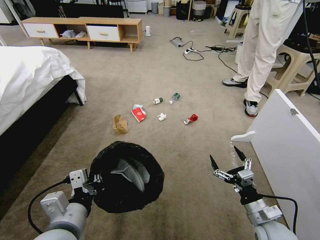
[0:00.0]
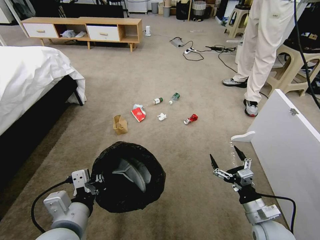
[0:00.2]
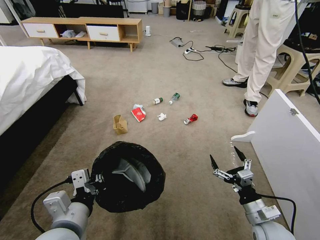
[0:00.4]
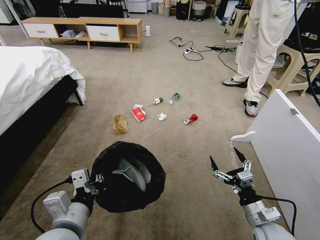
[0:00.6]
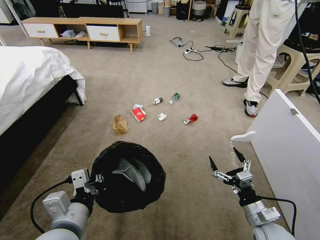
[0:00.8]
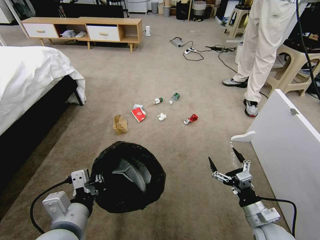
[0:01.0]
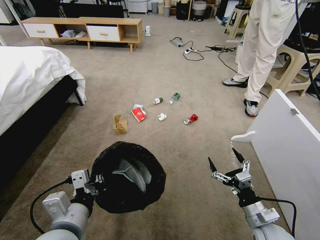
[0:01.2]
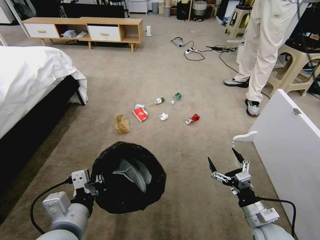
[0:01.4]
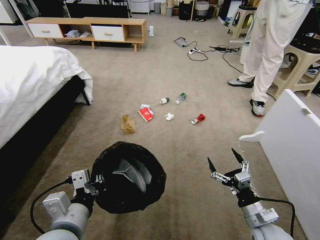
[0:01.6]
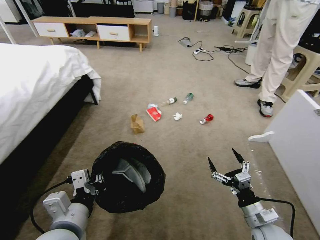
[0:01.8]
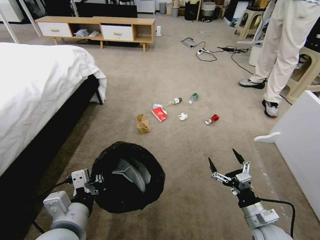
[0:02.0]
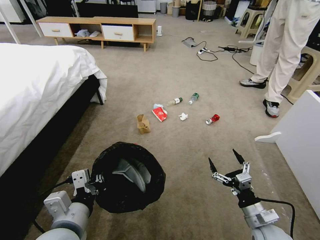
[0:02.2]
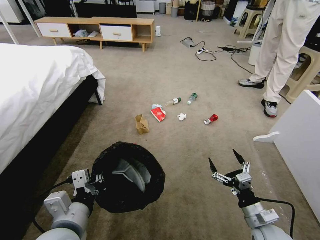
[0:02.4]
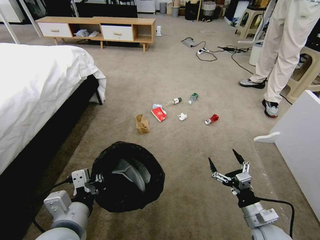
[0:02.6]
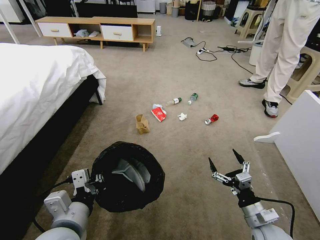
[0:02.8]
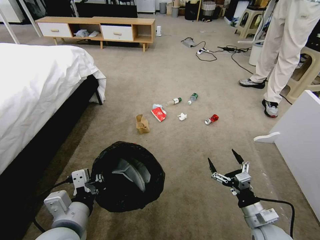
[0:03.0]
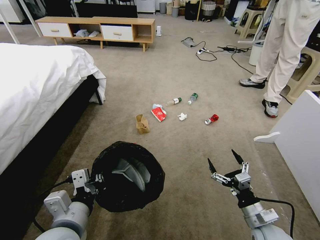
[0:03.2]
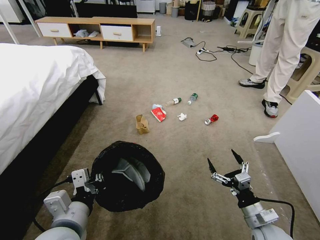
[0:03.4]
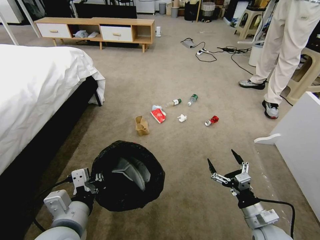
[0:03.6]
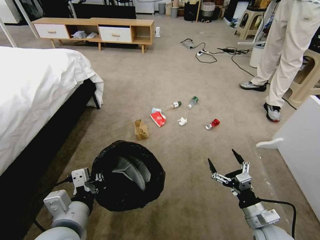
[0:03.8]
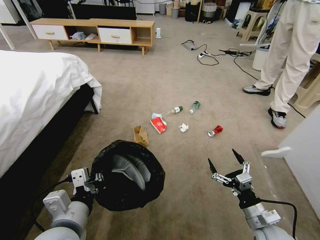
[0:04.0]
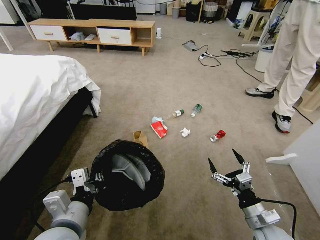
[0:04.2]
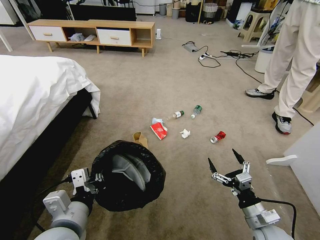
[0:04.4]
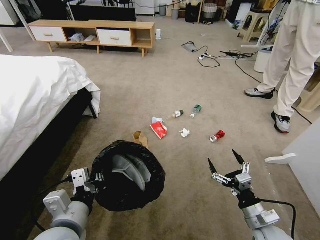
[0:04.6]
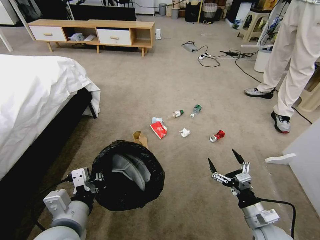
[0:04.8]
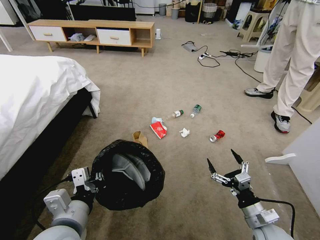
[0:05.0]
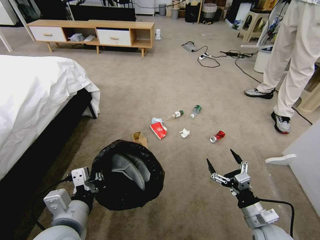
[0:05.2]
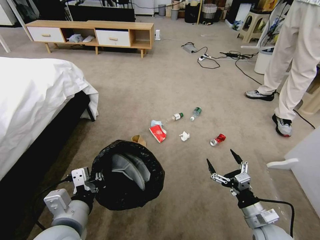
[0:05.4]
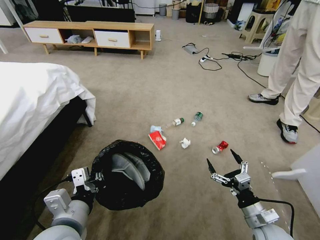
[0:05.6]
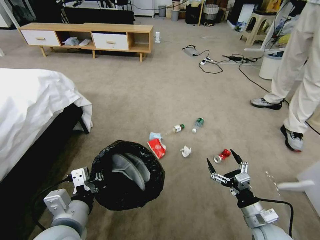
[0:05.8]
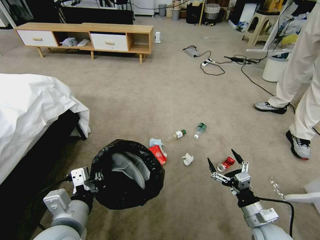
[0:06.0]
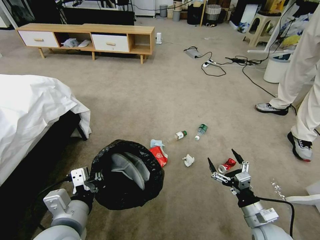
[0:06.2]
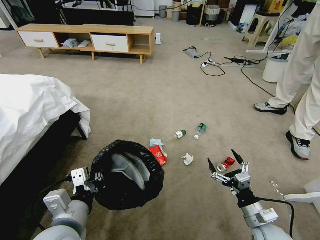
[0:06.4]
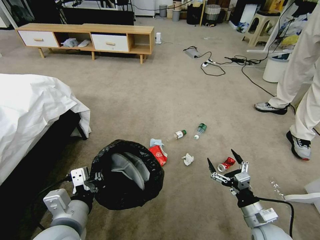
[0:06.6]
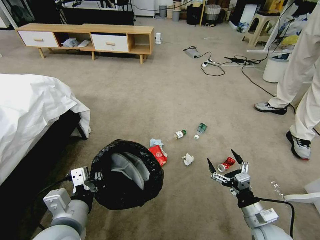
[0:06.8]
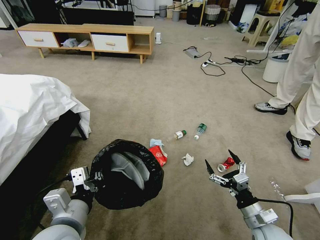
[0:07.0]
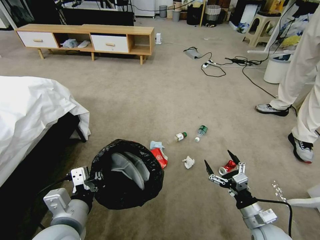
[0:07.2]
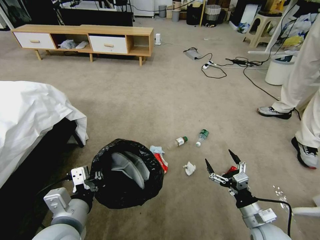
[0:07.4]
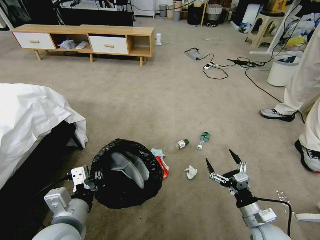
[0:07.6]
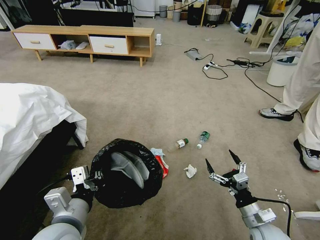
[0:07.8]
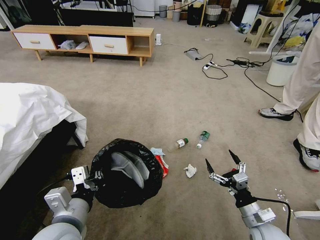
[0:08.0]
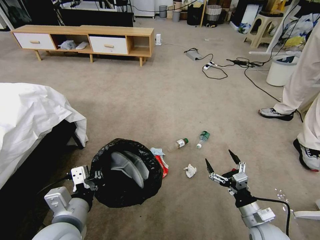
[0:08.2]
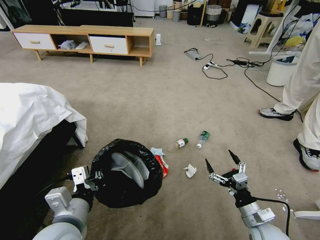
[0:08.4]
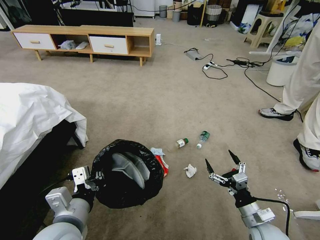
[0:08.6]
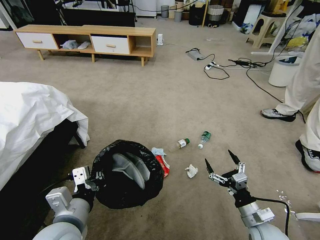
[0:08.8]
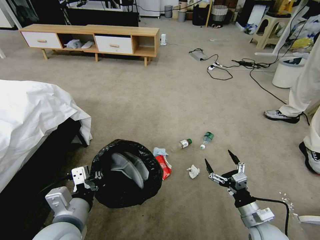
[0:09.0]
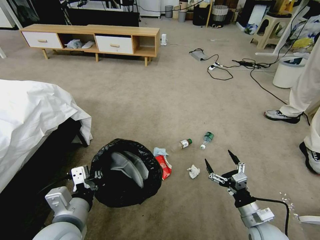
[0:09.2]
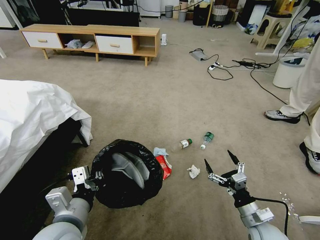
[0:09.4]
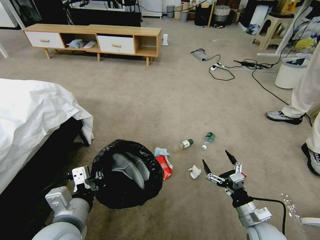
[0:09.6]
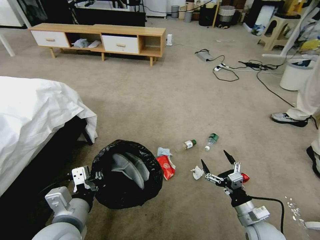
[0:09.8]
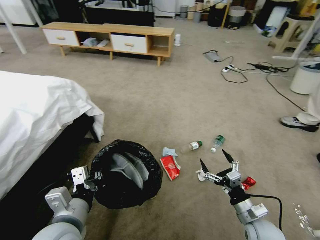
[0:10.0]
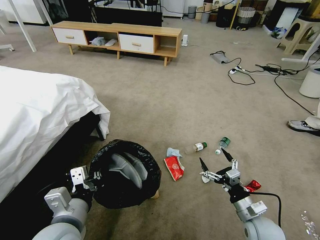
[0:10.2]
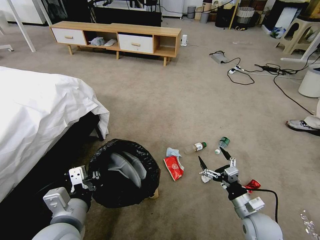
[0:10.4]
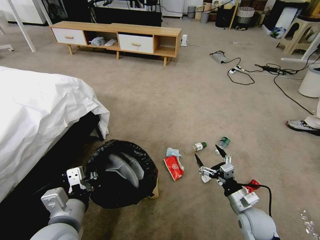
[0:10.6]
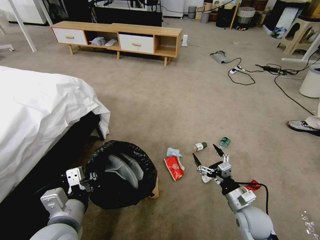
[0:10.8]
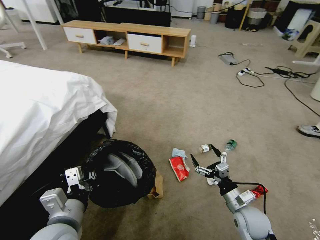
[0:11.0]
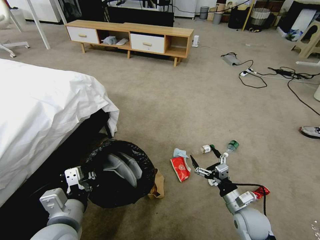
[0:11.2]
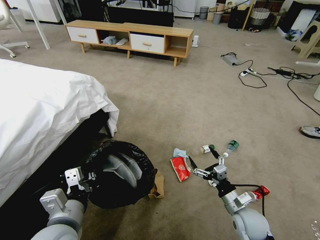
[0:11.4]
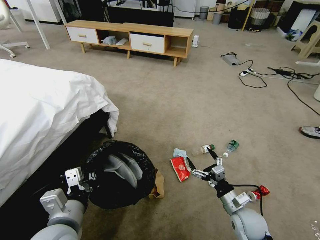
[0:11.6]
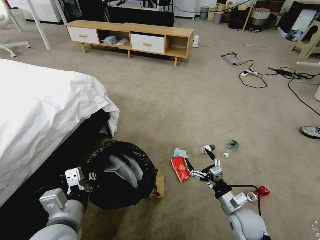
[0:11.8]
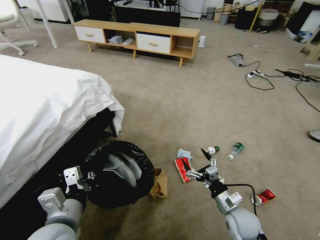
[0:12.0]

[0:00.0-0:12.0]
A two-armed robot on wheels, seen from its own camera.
Task of the whole recording: Pick up the trash bin and place the garbage on the floor into it.
0:07.6 to 0:09.0: Neither gripper changes place.
0:10.4 to 0:12.0: The right gripper ends up some 5 cm from where it was.

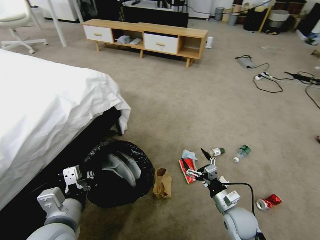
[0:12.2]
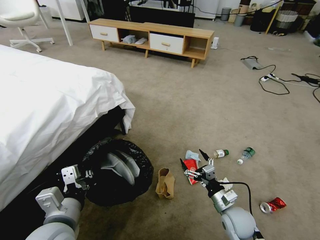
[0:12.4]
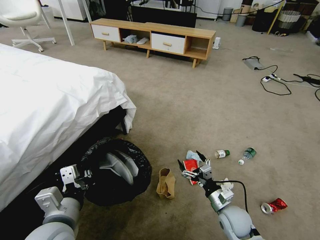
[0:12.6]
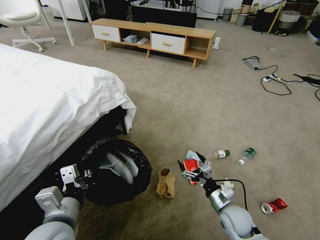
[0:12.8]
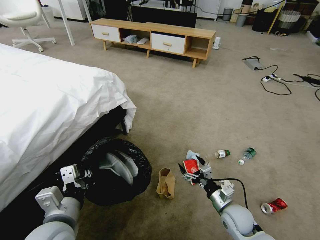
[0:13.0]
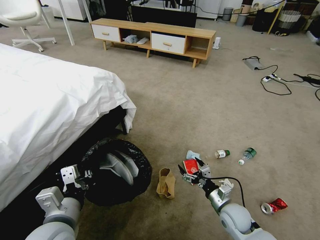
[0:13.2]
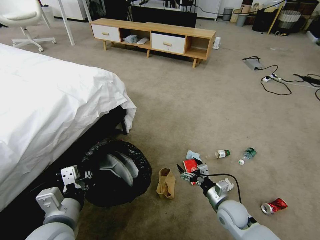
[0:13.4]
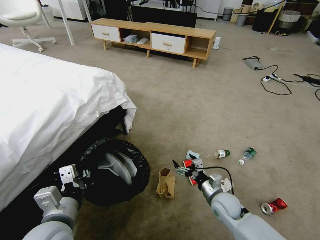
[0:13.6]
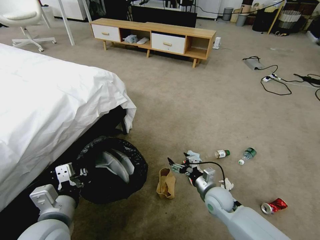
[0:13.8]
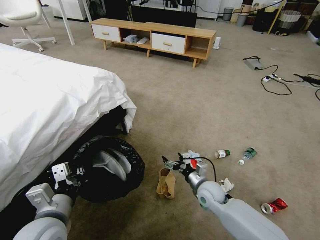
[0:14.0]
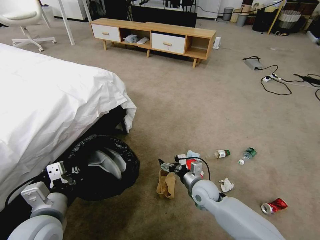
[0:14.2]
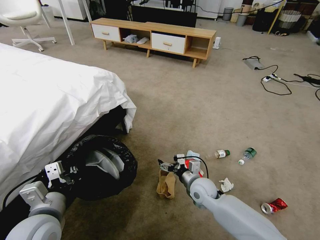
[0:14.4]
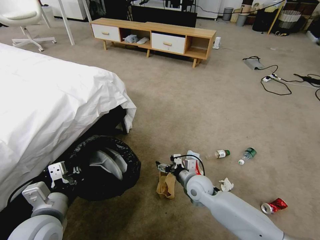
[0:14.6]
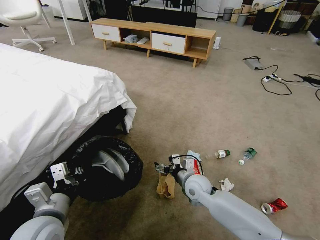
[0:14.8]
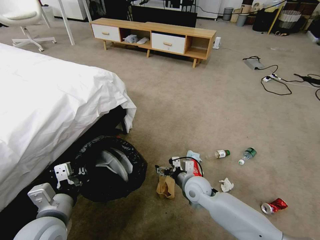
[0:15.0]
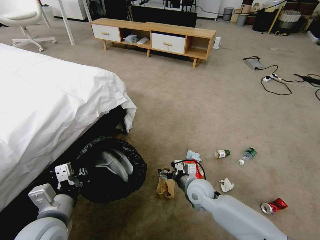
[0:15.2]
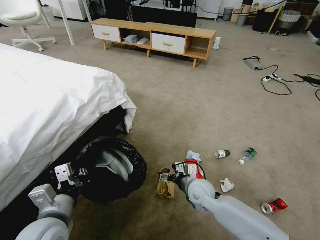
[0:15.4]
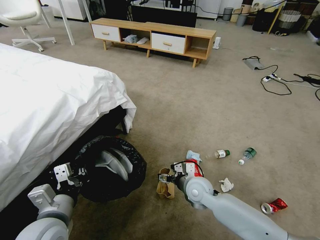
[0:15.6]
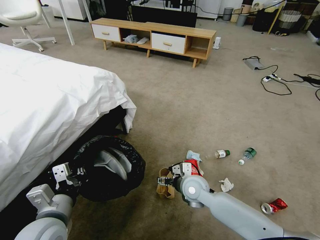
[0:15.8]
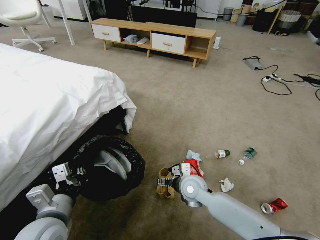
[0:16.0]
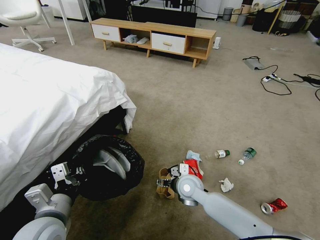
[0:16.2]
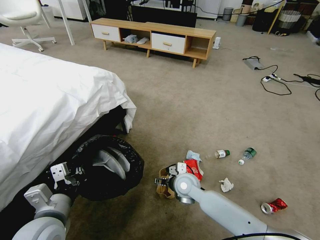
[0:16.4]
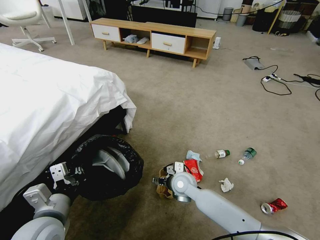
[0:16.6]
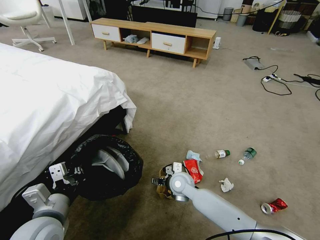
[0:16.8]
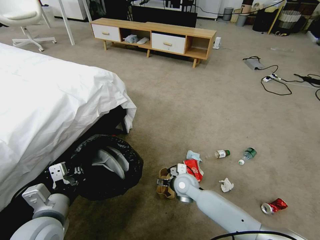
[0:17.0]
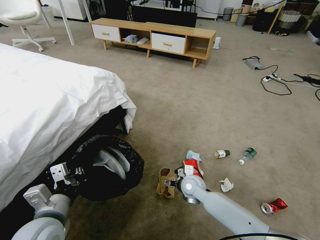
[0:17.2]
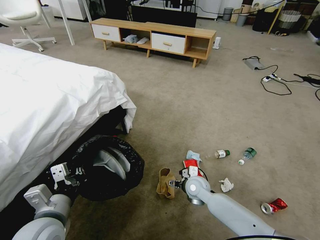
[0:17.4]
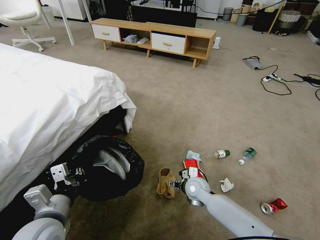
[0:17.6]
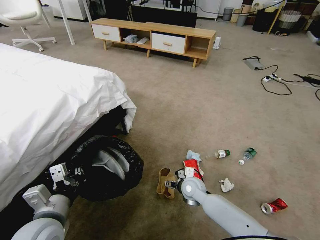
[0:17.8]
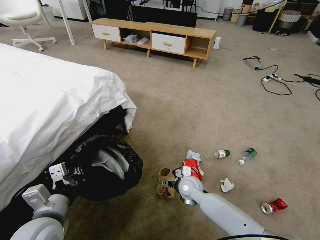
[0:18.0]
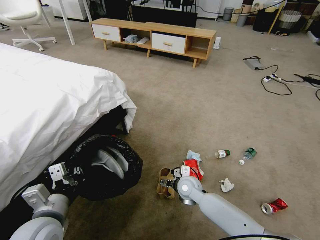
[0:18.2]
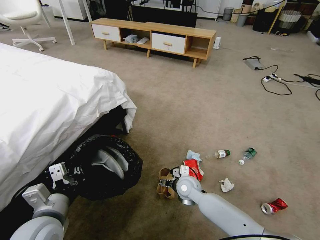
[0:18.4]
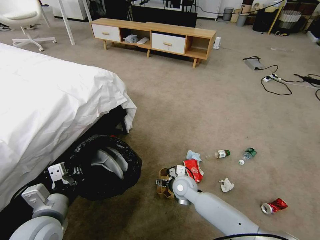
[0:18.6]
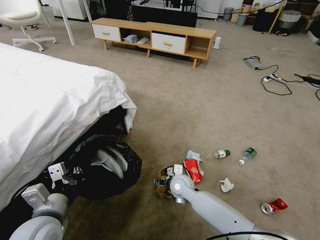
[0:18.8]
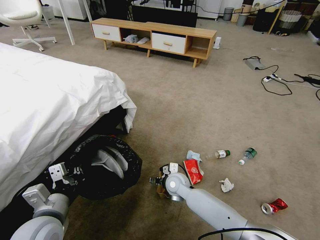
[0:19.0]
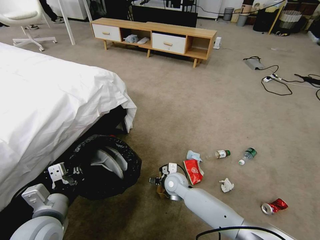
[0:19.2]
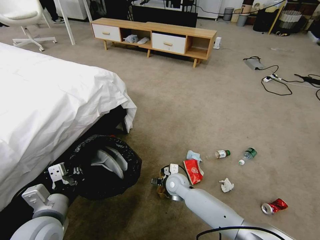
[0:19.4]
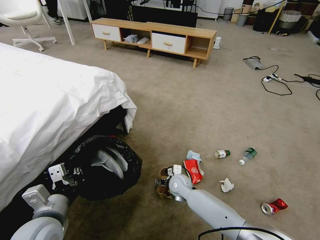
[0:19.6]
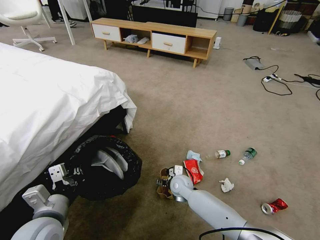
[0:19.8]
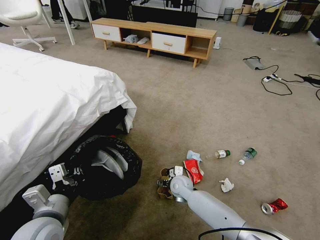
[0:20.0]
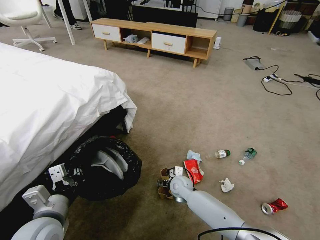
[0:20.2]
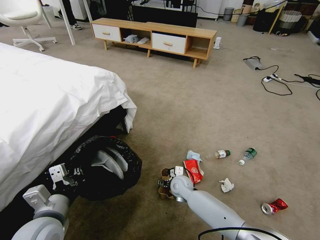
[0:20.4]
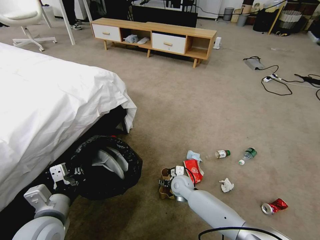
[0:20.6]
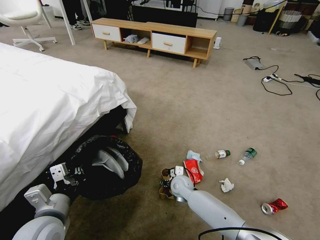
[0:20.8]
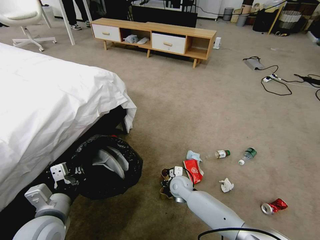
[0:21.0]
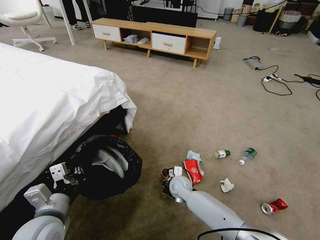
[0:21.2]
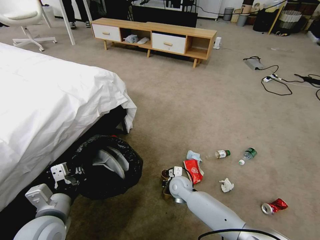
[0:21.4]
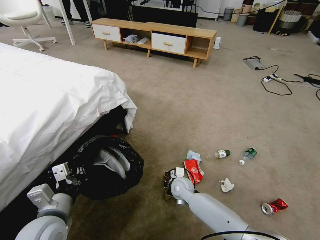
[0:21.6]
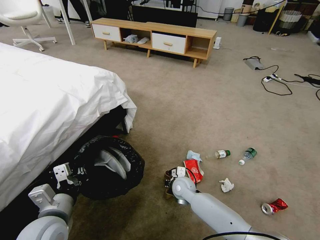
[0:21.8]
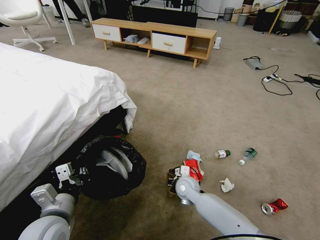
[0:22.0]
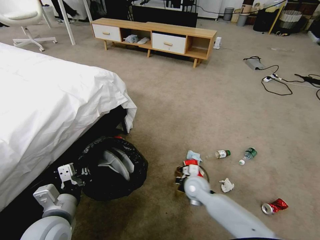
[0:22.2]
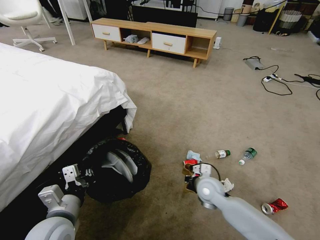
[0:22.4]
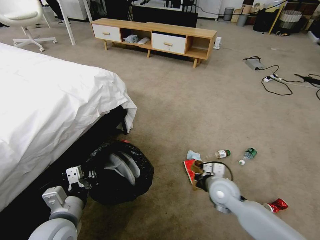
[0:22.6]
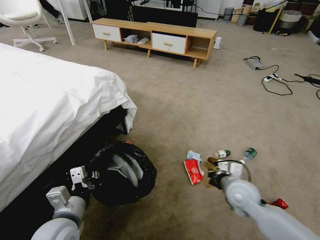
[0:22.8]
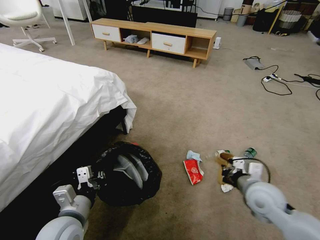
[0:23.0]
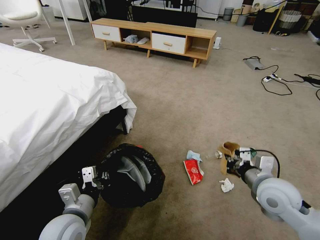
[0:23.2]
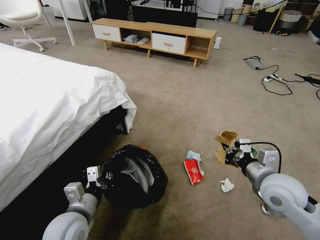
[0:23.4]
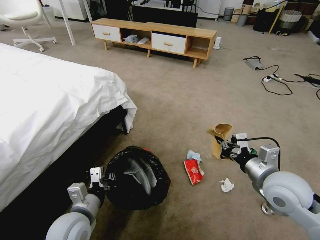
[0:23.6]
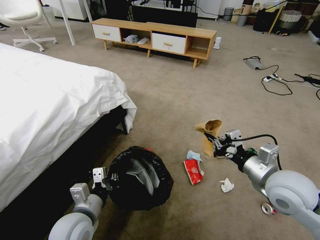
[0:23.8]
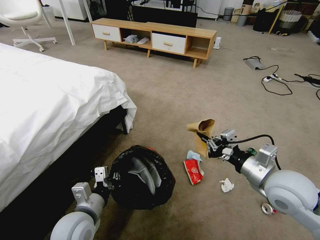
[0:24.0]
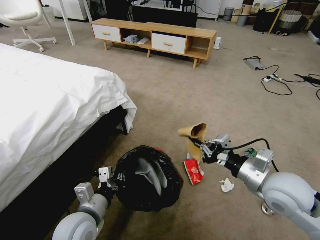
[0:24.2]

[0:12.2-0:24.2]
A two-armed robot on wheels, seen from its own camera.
Task of the whole recording: Pick up the trash bin and place the garbage on the floor into it.
0:12.2 to 0:13.8: The right gripper travels forward by roughly 5 cm.
0:13.8 to 0:15.2: The right gripper heads to the left, covering about 5 cm.
0:15.2 to 0:16.6: The right gripper goes some 5 cm to the left.
0:18.2 to 0:19.8: The grippers move only a little.
0:19.8 to 0:21.2: The right gripper closes.
0:21.2 to 0:22.6: The right gripper moves to the right, upward and backward, roughly 20 cm.
0:22.6 to 0:24.2: The right gripper goes some 20 cm upward and to the right.
